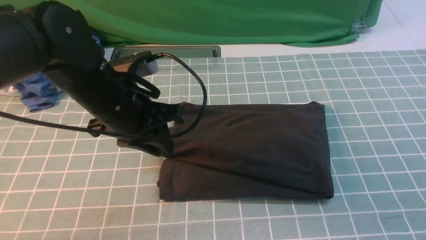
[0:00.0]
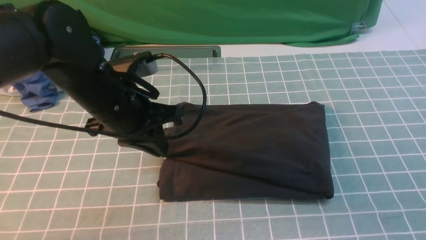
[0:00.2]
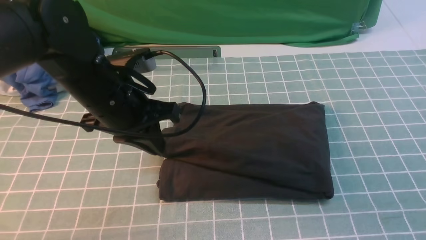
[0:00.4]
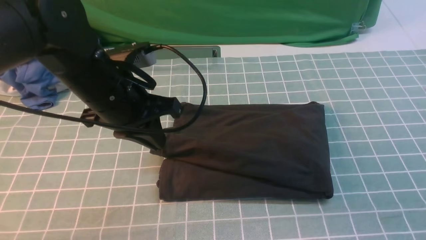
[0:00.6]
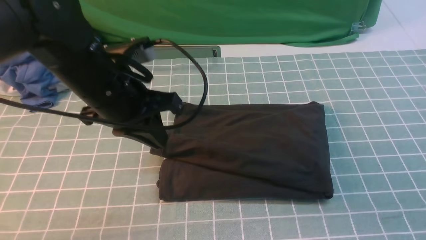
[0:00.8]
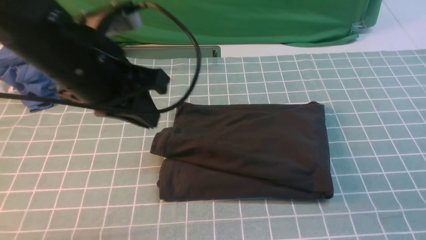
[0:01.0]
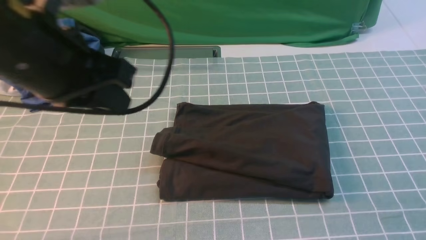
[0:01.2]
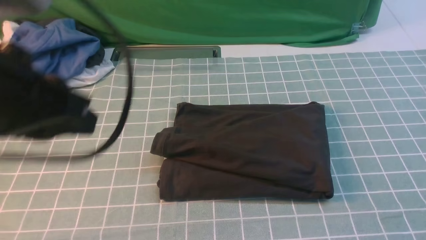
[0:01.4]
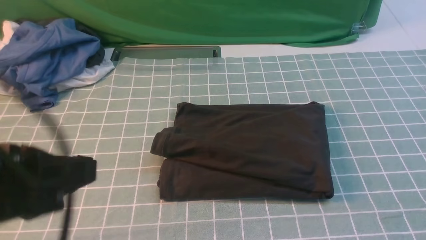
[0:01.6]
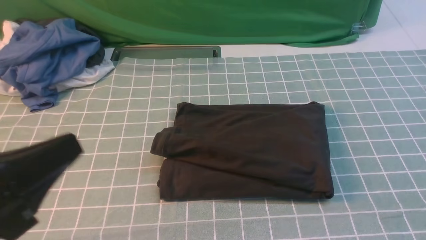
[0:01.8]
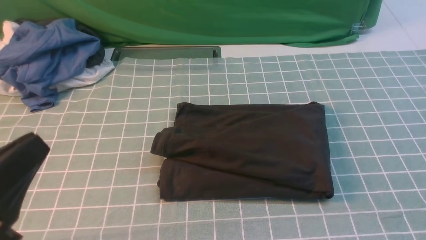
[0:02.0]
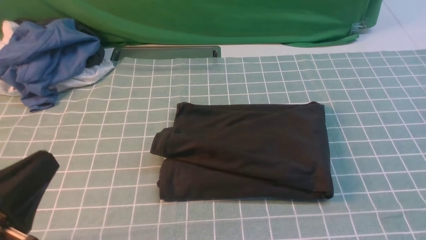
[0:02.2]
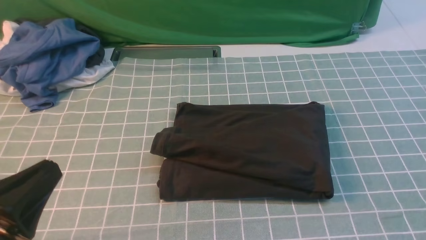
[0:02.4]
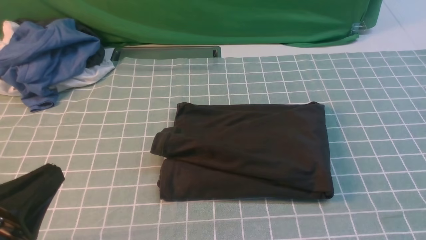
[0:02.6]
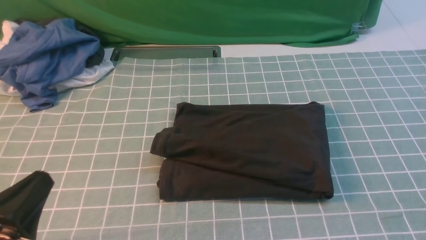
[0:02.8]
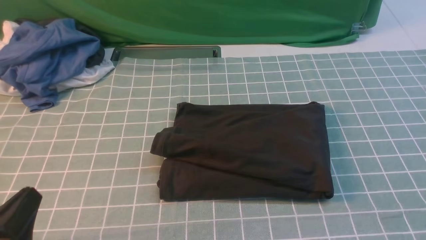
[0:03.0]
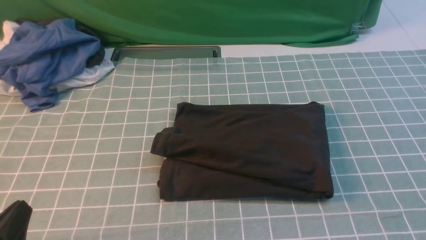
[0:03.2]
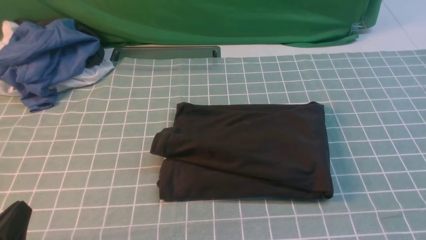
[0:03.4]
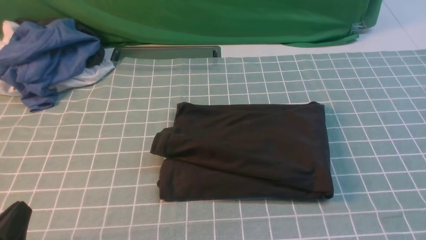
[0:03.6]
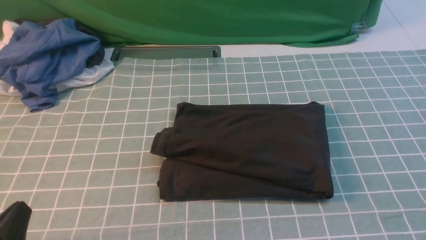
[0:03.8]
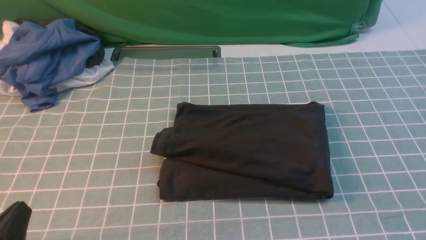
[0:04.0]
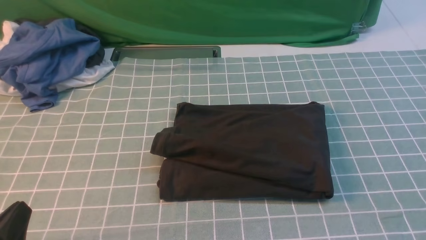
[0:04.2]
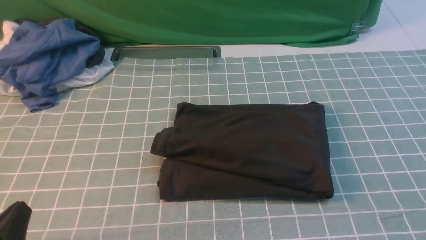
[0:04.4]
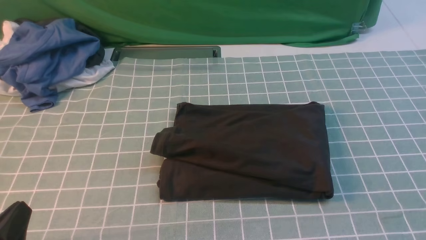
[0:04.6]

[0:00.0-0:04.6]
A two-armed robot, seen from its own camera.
0:00.0 to 0:01.6: The left gripper shifts roughly 20 cm backward and upward. Meanwhile the right gripper is displaced downward by approximately 10 cm.
0:01.6 to 0:03.0: The left gripper heads downward, covering about 15 cm.
